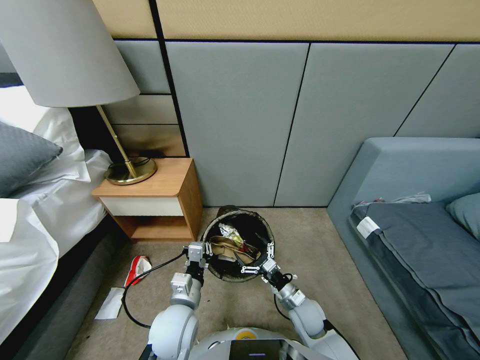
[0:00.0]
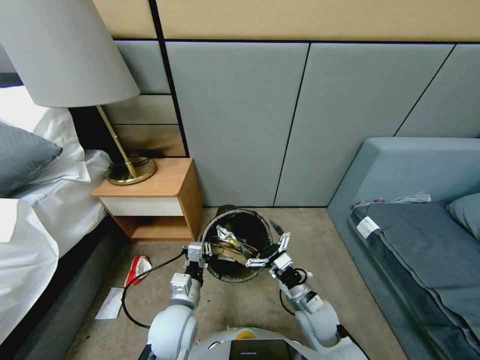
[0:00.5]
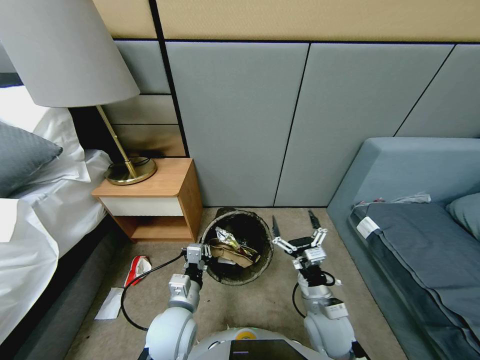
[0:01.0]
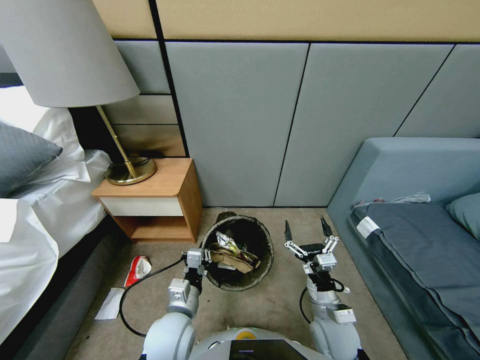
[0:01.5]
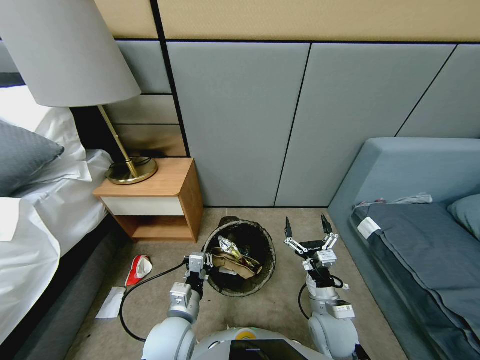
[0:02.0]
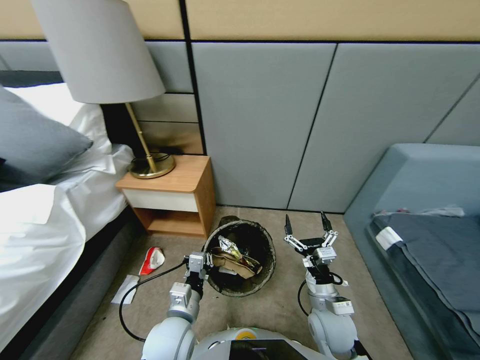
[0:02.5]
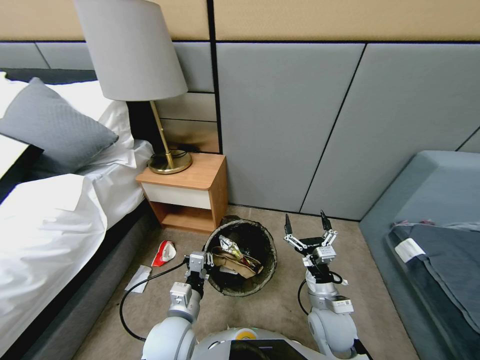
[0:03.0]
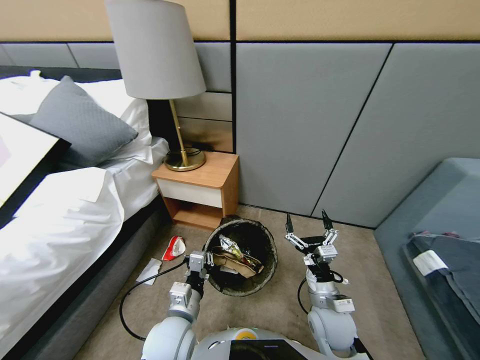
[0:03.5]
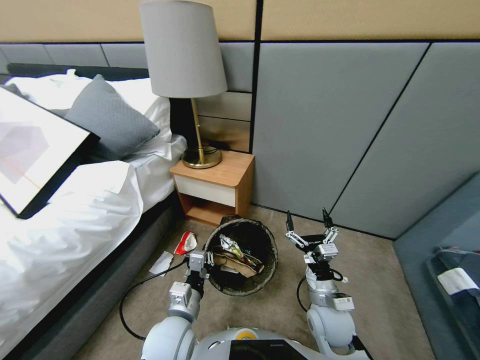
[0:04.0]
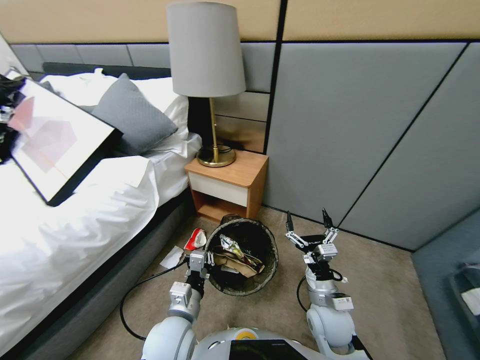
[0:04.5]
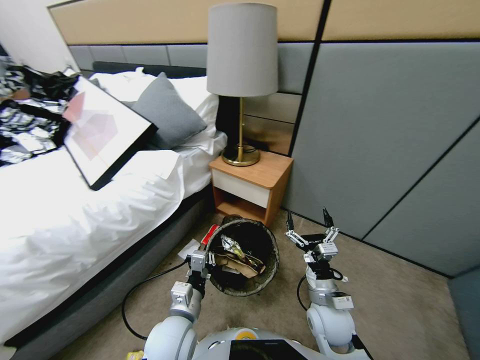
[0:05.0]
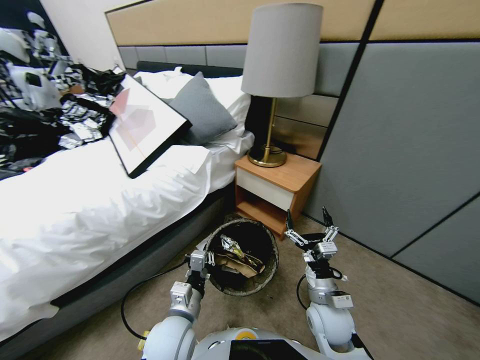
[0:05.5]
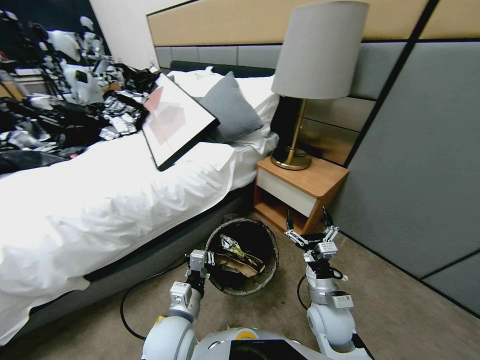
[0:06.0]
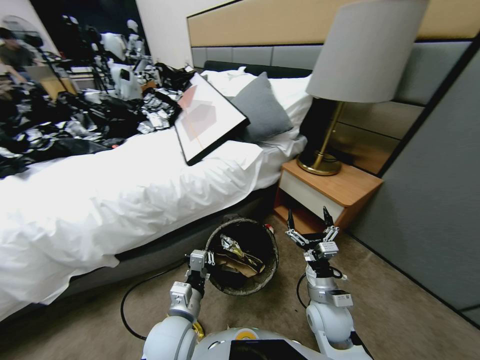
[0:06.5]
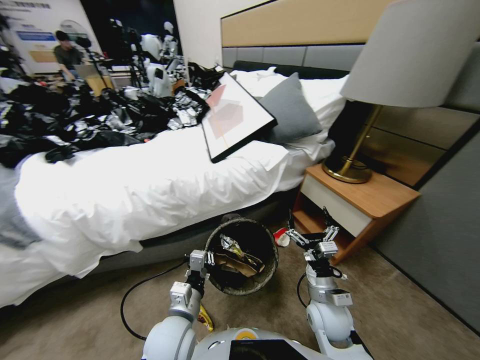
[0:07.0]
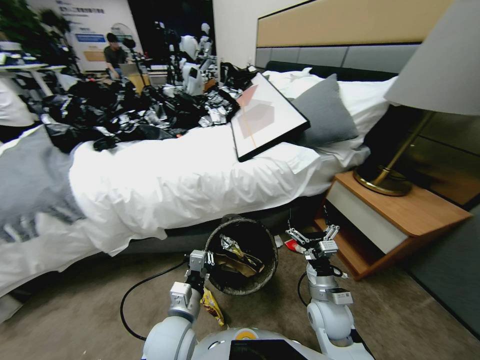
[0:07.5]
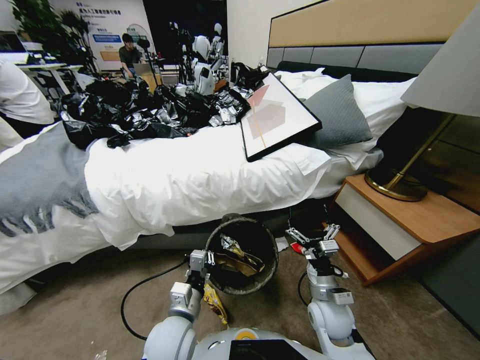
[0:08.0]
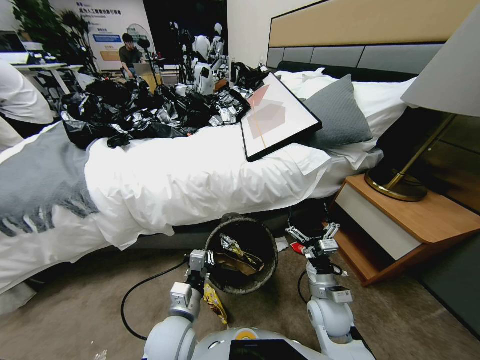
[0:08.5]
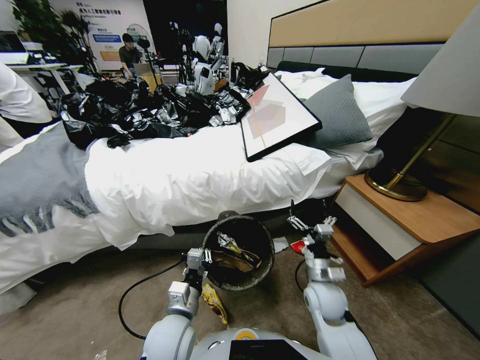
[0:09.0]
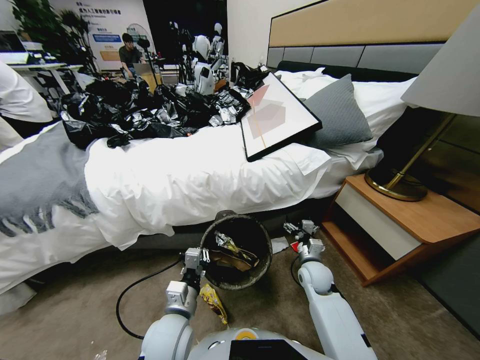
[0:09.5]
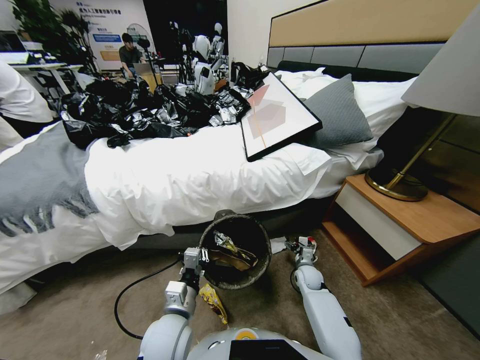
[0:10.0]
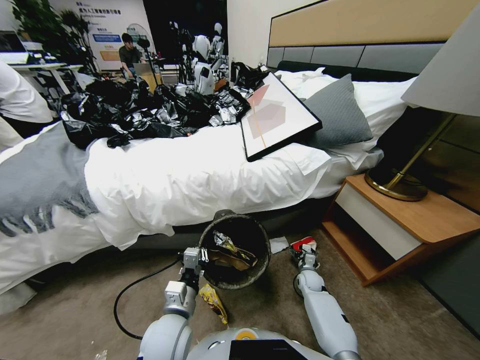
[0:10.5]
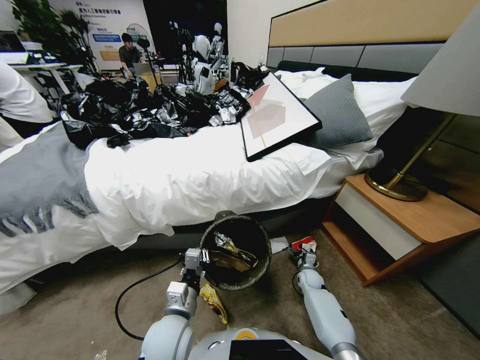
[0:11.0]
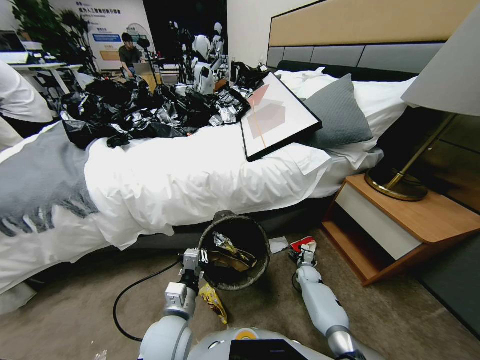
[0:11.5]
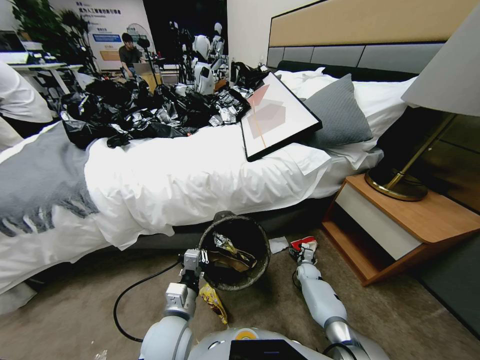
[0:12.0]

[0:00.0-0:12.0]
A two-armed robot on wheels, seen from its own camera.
Task of the whole recording: Pick up the trash bin, then pick up the garbage from the floor and place it into the trash bin.
0:00.0 to 0:02.0: The right gripper is displaced upward by about 10 cm.
0:08.0 to 0:10.0: The right gripper moves downward and forward, roughly 20 cm.
0:10.0 to 0:12.0: The right gripper is displaced downward by about 10 cm.

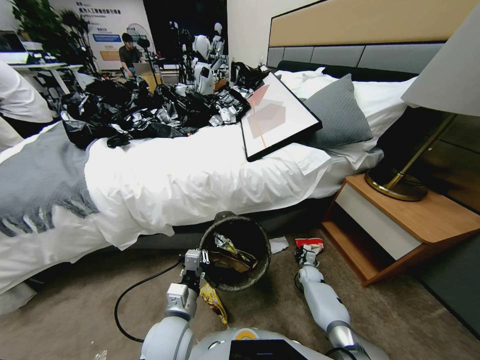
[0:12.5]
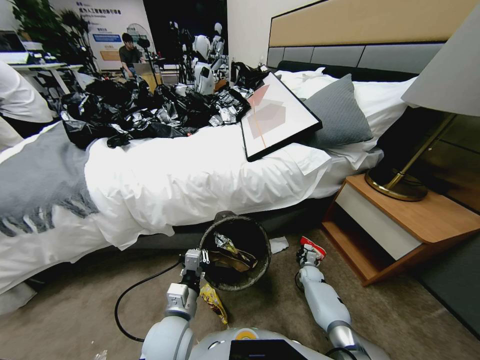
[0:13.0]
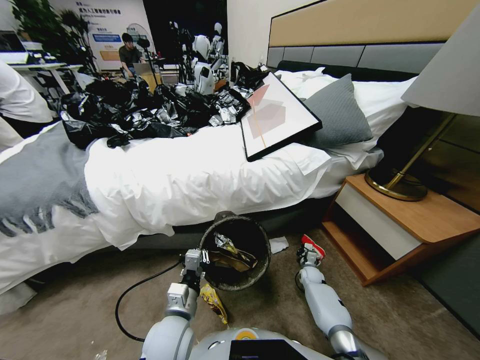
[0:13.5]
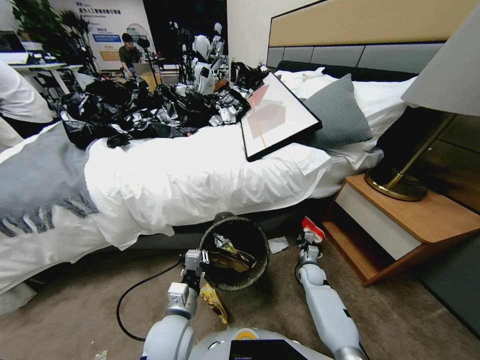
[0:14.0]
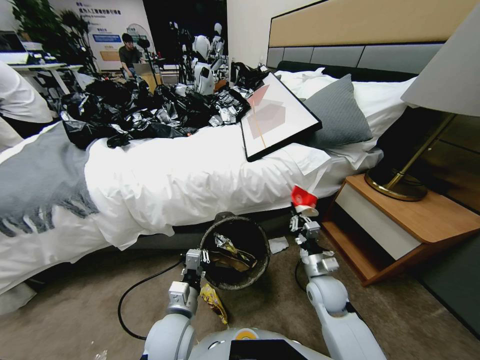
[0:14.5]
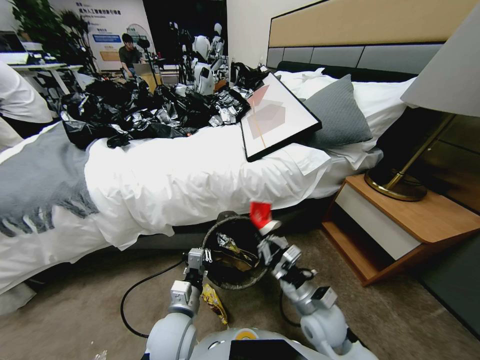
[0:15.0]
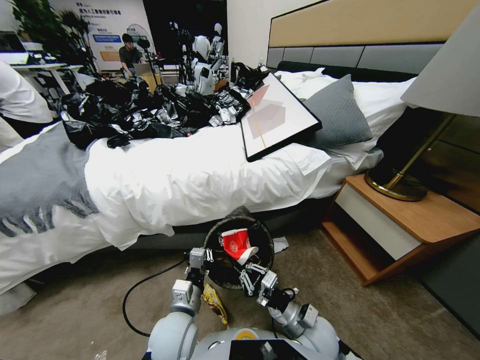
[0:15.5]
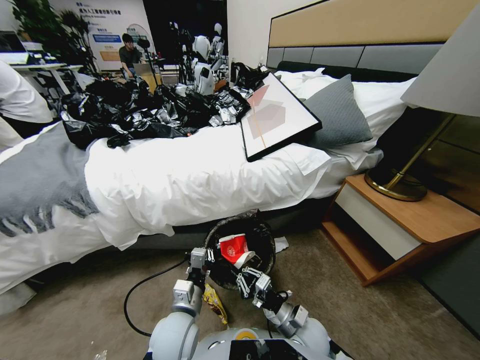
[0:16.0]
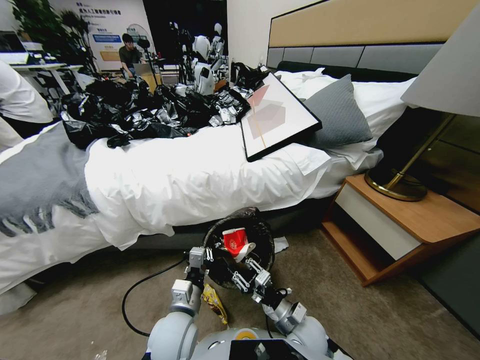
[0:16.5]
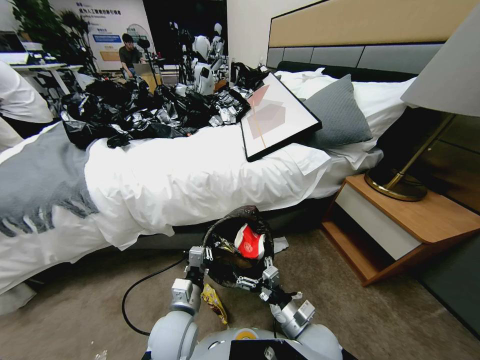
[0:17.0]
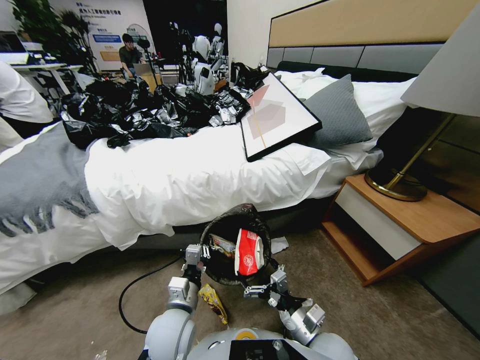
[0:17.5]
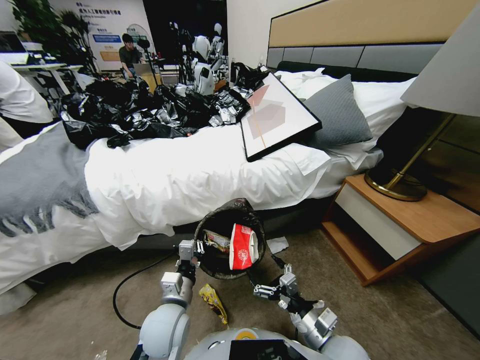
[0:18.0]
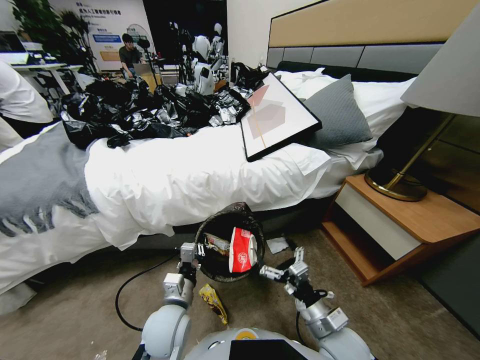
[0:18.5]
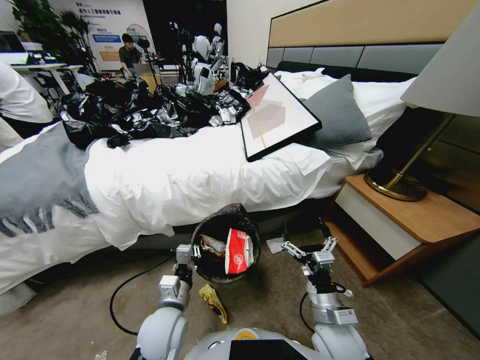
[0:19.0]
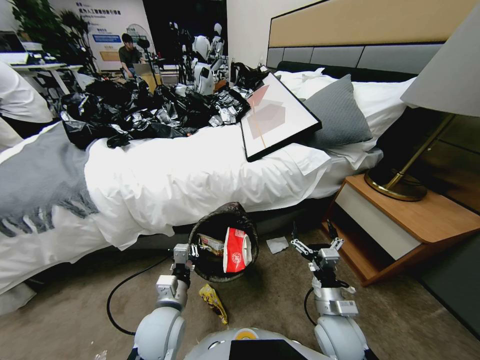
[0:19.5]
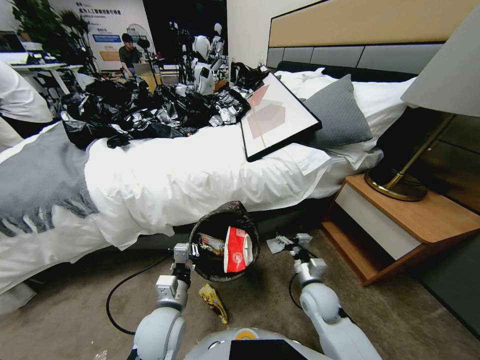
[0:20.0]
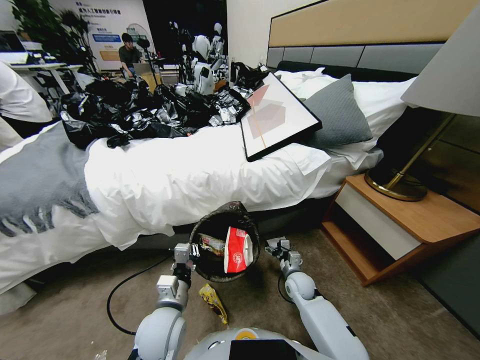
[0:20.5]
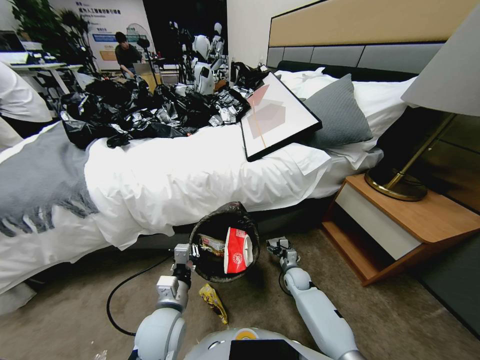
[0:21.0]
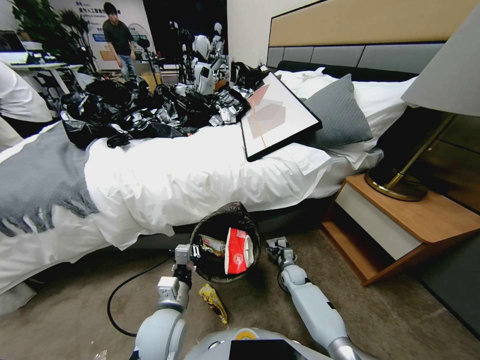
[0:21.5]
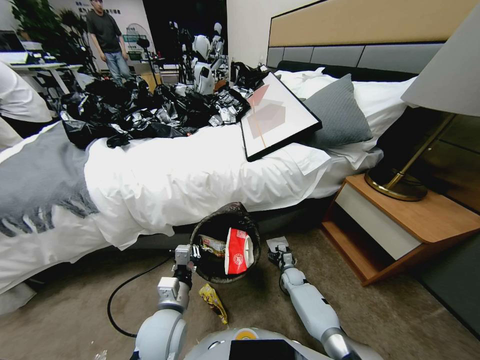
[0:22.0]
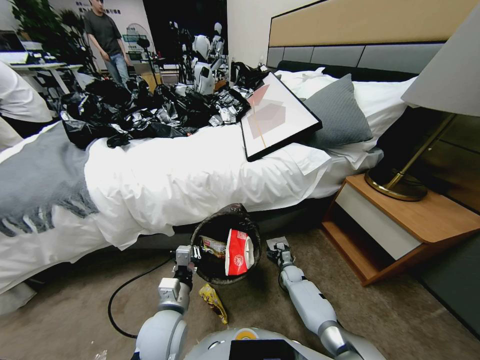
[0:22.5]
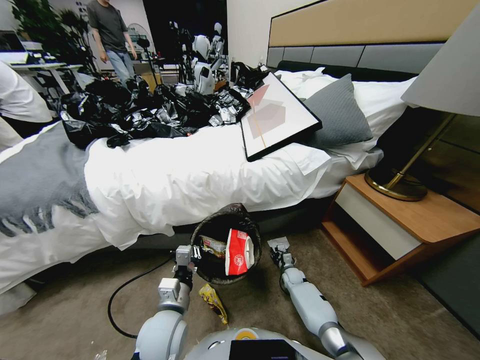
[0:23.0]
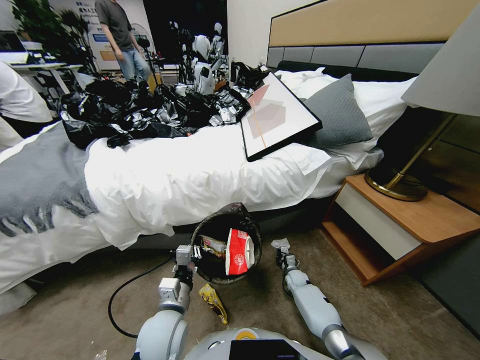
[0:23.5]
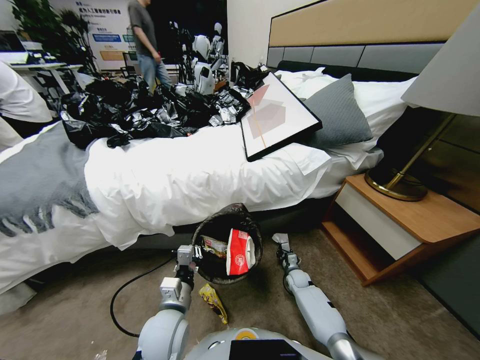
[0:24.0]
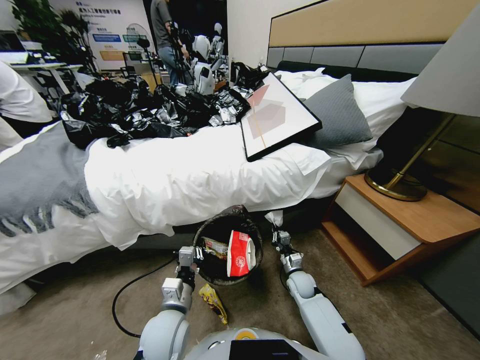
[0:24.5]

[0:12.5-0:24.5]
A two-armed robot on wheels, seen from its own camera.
Task of the whole recording: Pick up the trash bin, then pick up the garbage from the floor and place it into the trash bin.
0:12.5 to 0:14.5: The right gripper goes roughly 30 cm upward and backward.
0:14.5 to 0:16.5: The right gripper shifts about 10 cm backward and to the left, and opens up.
0:16.5 to 0:18.5: The right gripper is displaced upward by roughly 5 cm, and opens its fingers.
0:18.5 to 0:20.5: The right gripper is displaced forward and downward by about 25 cm.
0:20.5 to 0:22.5: The right gripper travels downward and forward by approximately 15 cm.
0:22.5 to 0:24.5: The right gripper moves upward and backward, approximately 10 cm, and closes up.

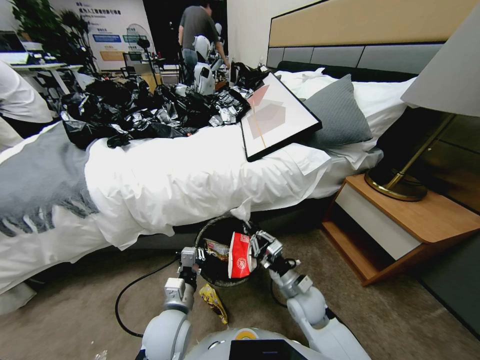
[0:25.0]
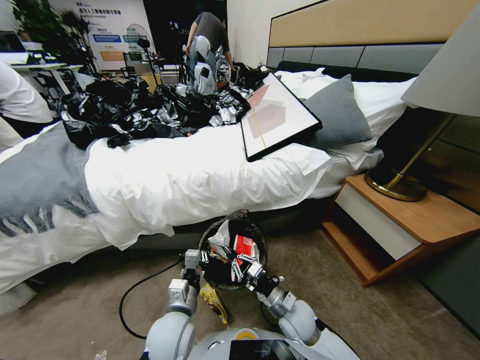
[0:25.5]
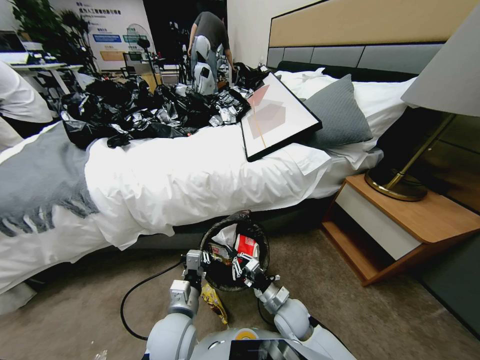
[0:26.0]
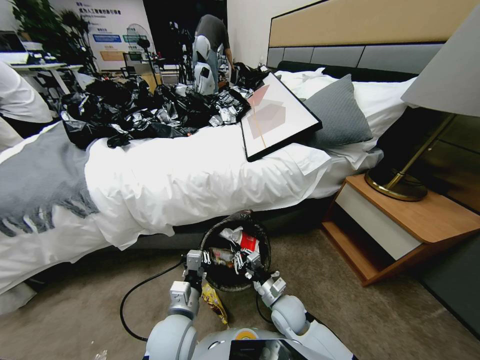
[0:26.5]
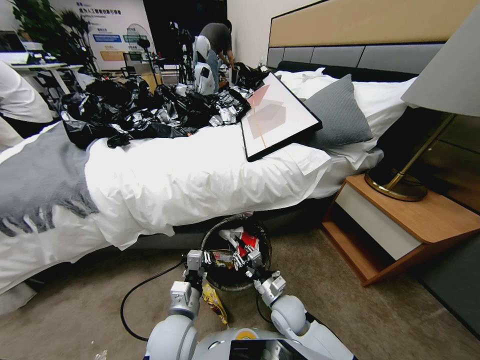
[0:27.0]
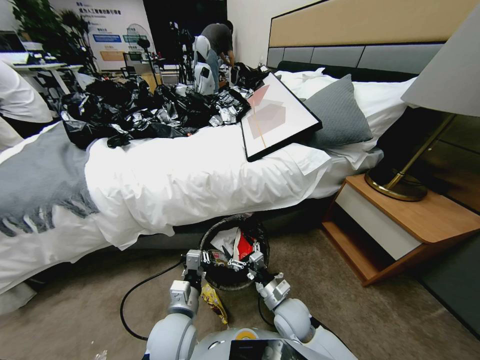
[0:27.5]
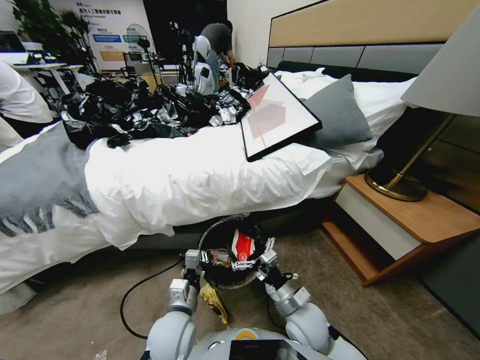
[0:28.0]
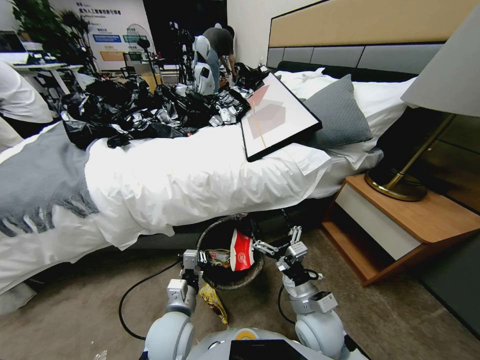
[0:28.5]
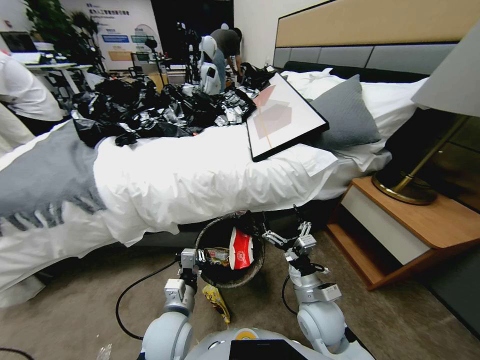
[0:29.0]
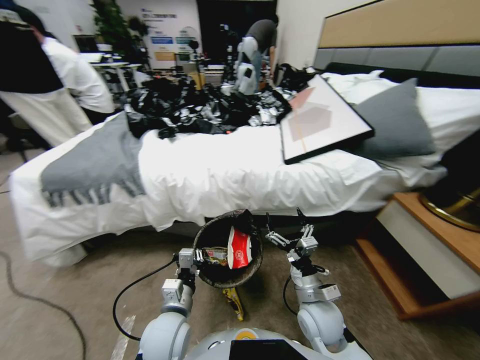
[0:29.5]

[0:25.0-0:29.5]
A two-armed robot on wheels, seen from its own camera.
Task of the whole recording: Pick up the trash bin, then pick up the garbage from the floor and place it into the trash bin.
0:25.0 to 0:27.0: The right gripper shifts by about 5 cm, and opens its fingers.
0:27.0 to 0:29.5: The right gripper heads upward and to the right, covering about 10 cm, and opens up.
